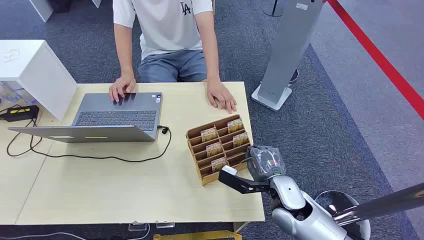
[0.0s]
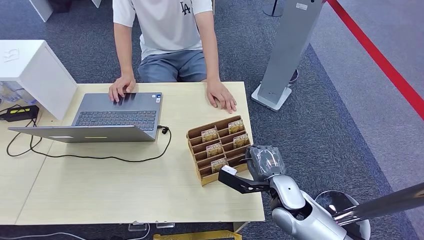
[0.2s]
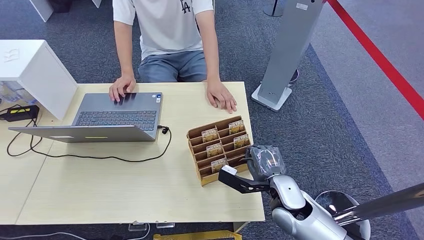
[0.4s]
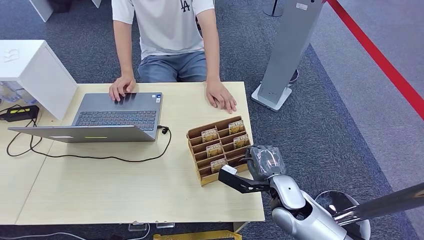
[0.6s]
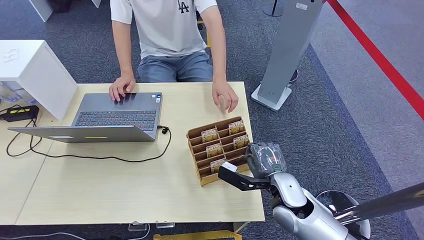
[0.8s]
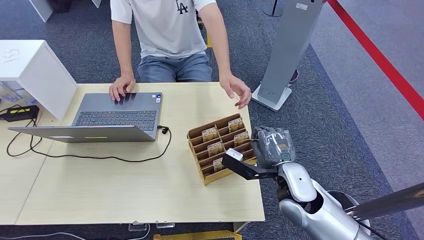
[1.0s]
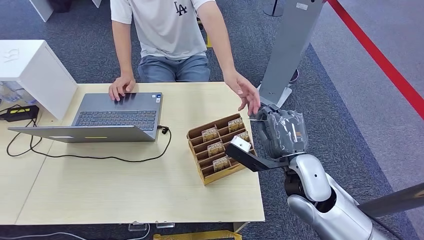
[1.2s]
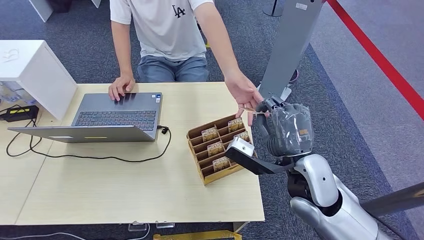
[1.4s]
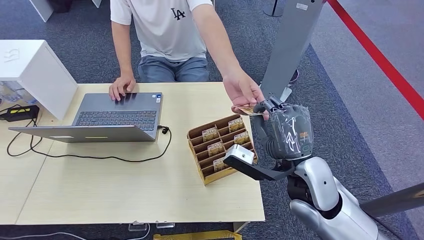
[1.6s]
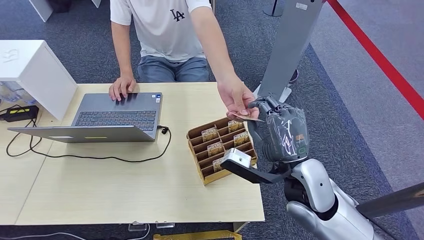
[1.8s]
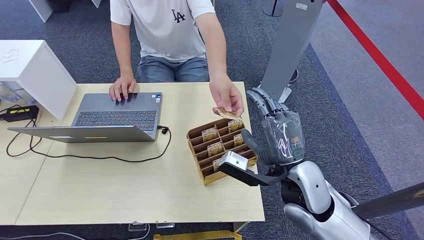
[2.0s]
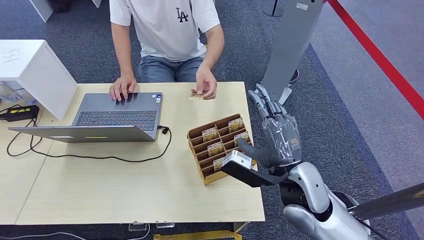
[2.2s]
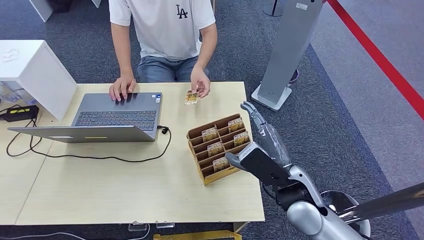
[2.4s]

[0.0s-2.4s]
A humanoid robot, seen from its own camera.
Step, 0.0s to 1.0s: Pick up the key card from the card box.
Step, 1.2s to 2.4s: Hand the key card to the target.

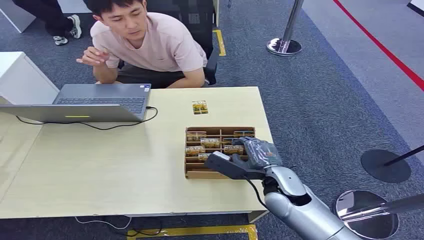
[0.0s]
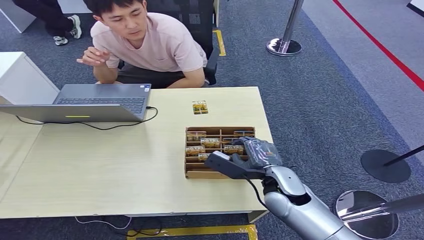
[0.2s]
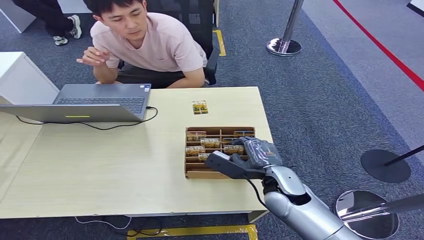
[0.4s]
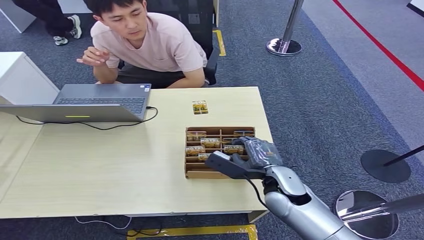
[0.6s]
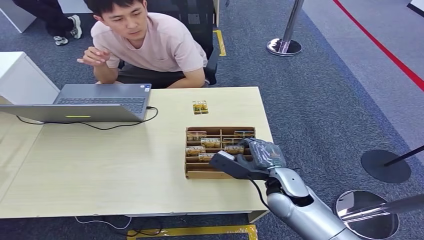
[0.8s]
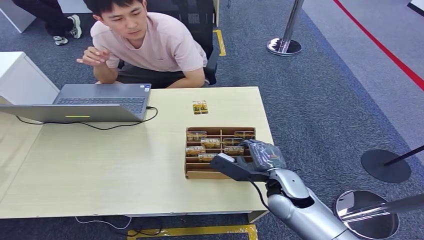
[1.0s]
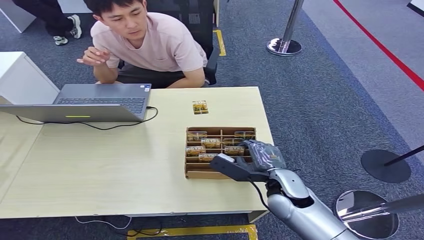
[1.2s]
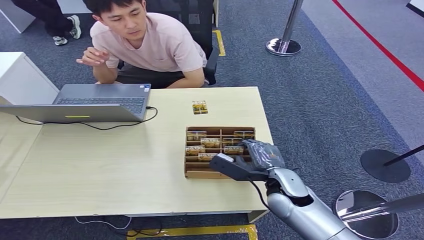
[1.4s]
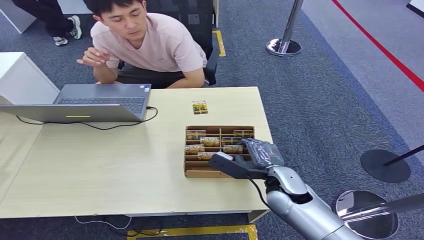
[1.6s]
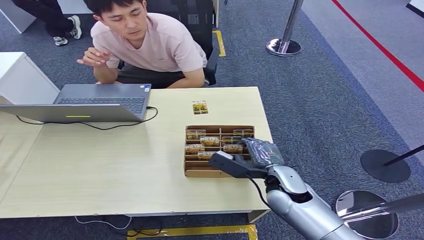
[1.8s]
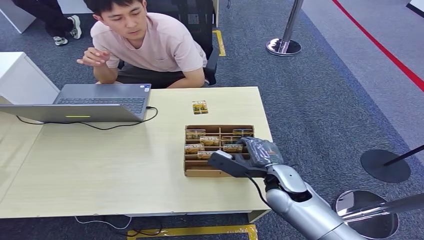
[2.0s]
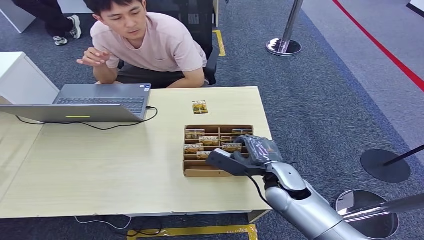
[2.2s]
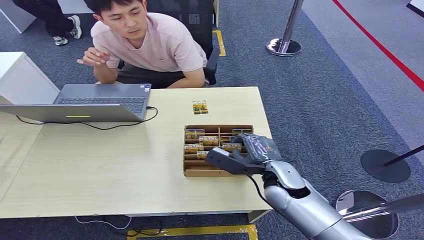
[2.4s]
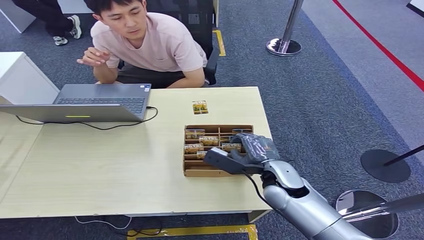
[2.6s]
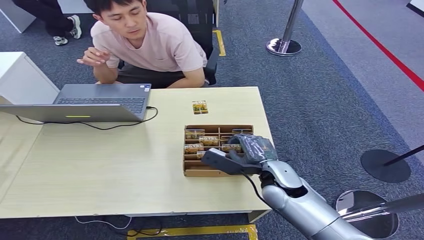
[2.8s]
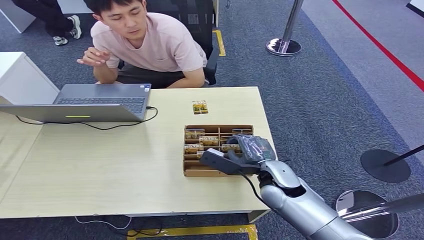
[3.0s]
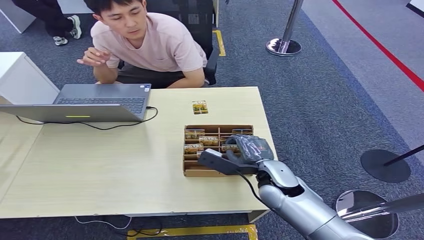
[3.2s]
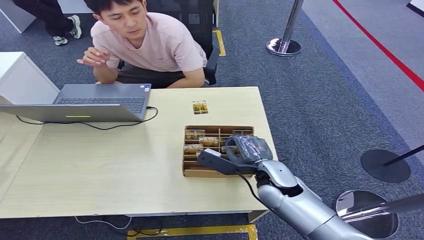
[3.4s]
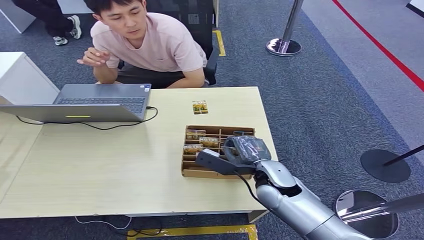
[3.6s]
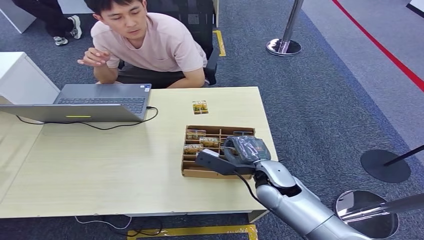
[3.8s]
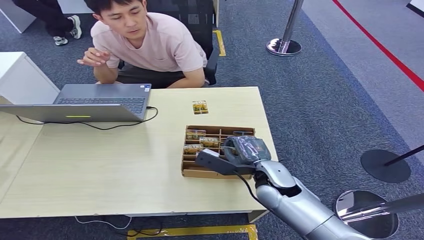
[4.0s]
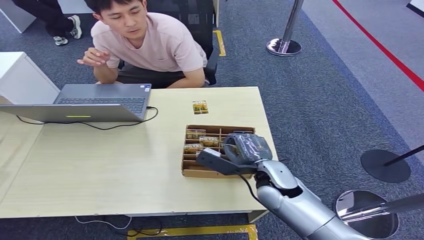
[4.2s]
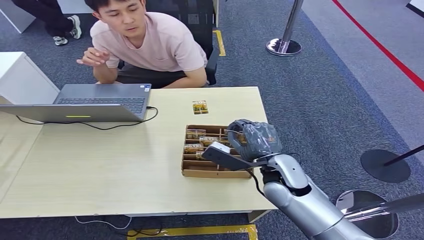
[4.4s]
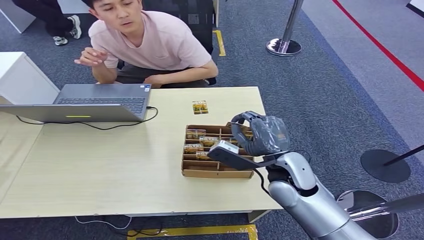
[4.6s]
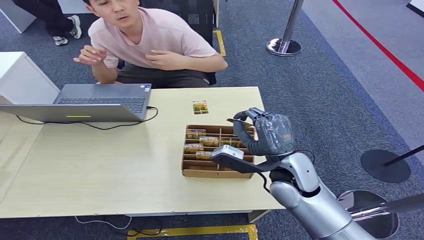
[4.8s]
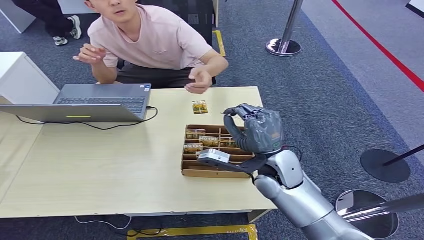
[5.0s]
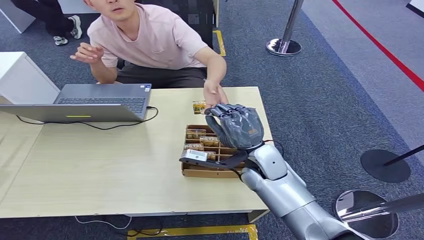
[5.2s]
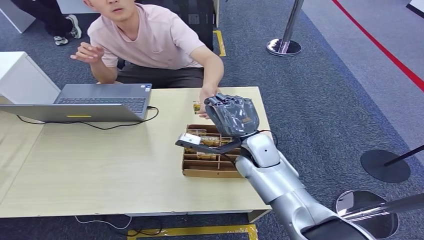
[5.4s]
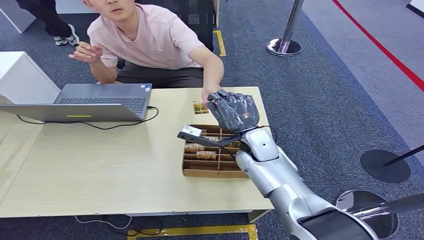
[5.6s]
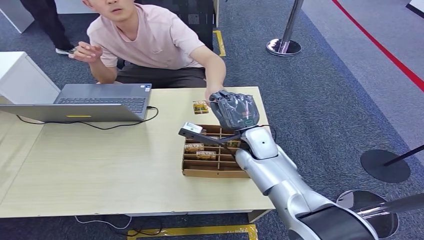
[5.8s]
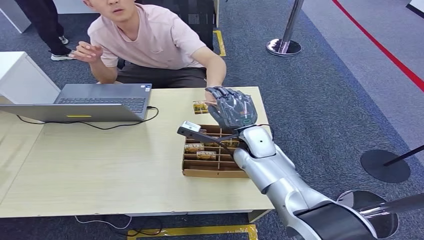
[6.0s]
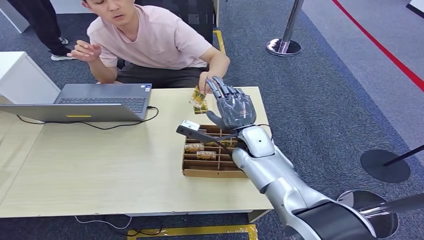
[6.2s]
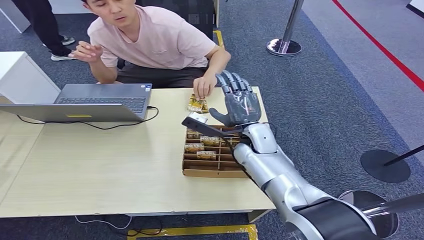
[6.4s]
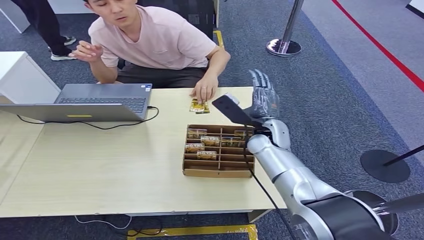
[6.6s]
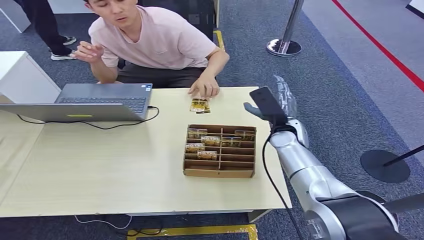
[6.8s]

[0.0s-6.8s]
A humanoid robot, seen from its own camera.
Step, 0.0s to 4.6s: Pick up the key card from the card box.
Step, 4.8s to 6.6s: Hand the key card to the target.
1.4s to 2.8s: The hands make only small movements.
2.8s to 4.0s: Neither hand changes place.
4.0s to 5.4s: The right hand shifts some 10 cm forward and upward.
5.4s to 6.8s: The right hand travels to the right and forward by some 10 cm.
